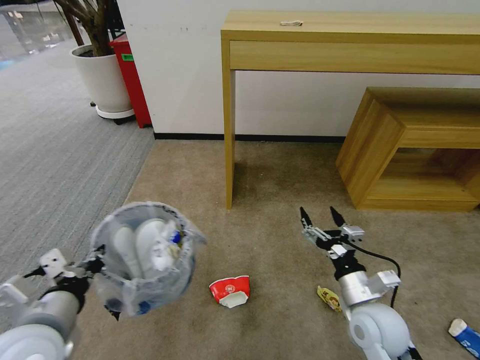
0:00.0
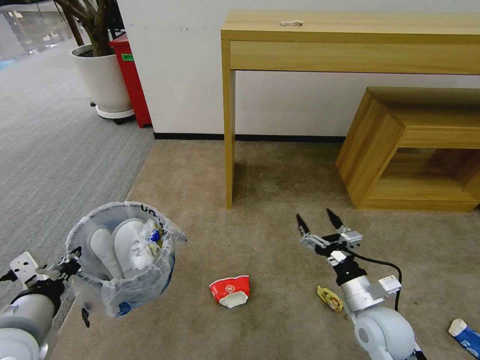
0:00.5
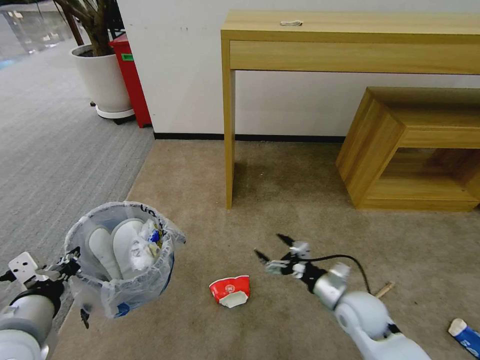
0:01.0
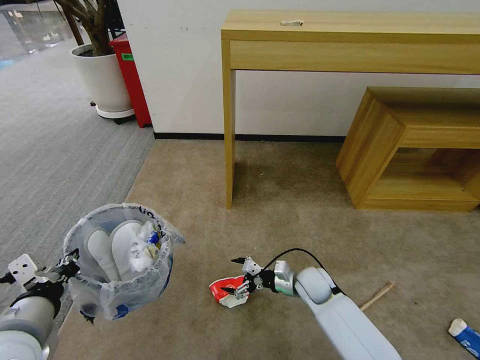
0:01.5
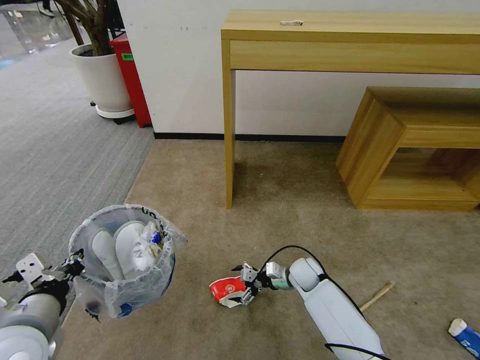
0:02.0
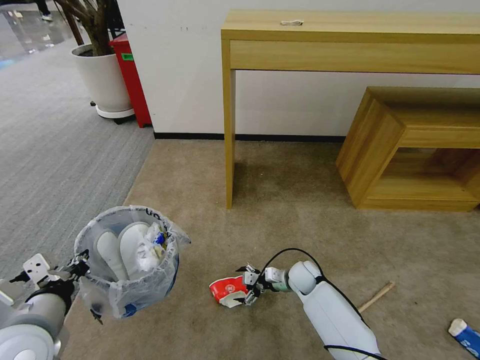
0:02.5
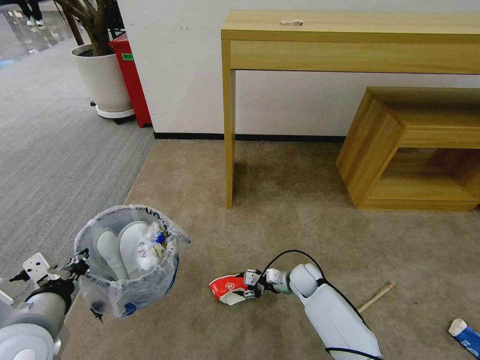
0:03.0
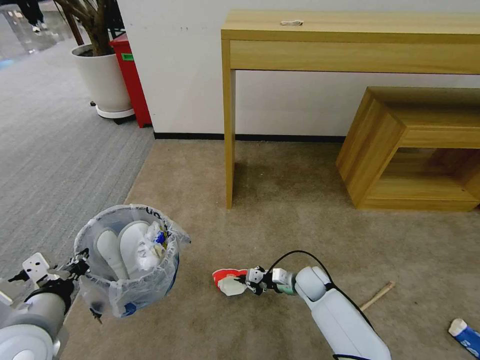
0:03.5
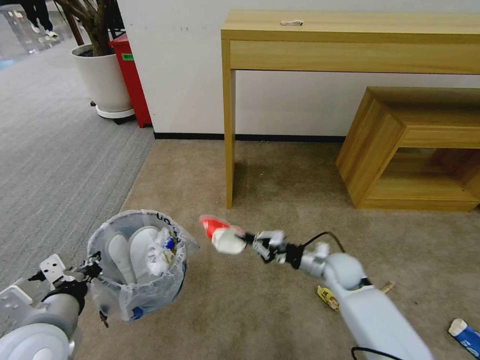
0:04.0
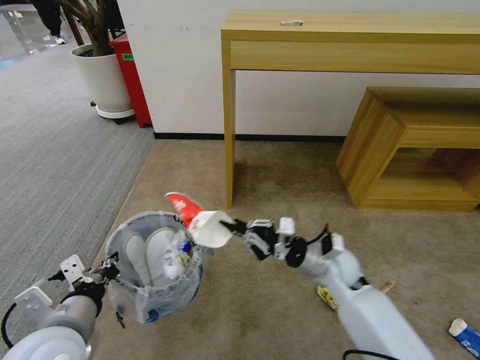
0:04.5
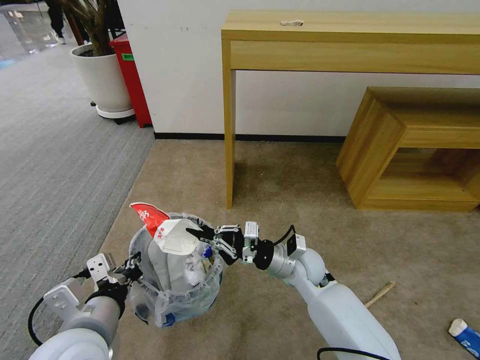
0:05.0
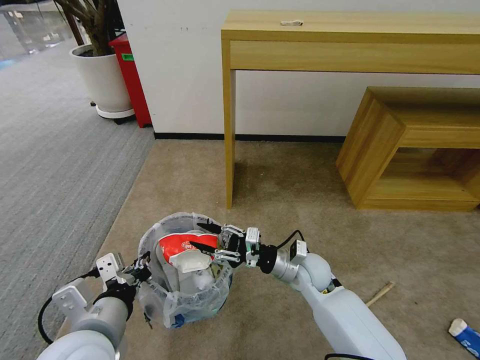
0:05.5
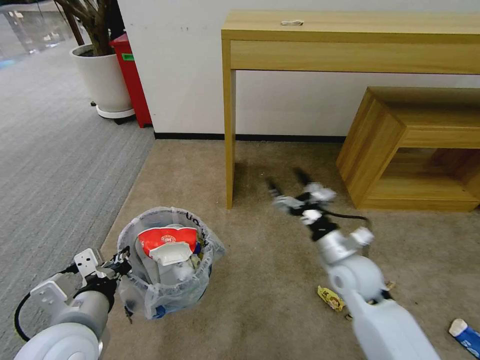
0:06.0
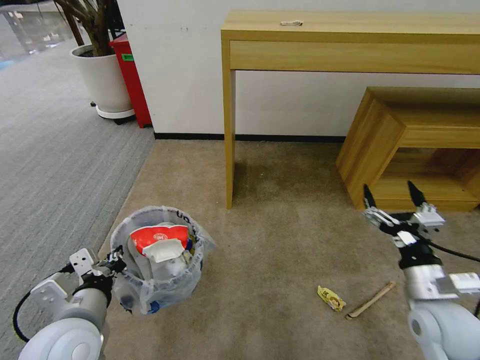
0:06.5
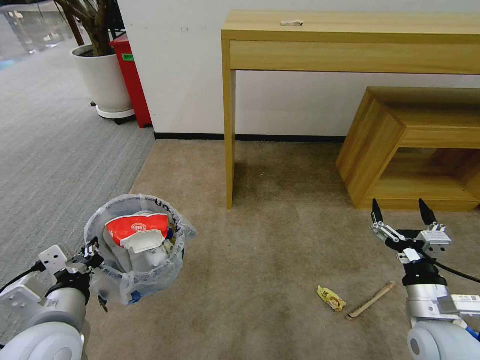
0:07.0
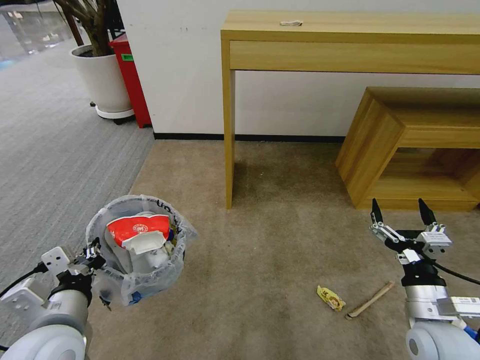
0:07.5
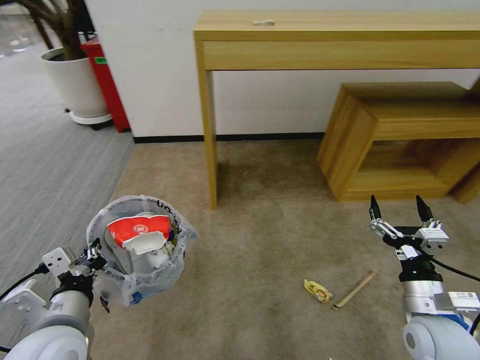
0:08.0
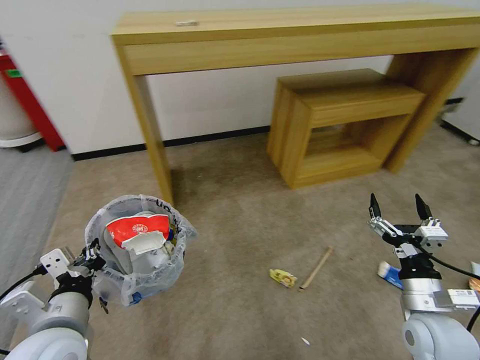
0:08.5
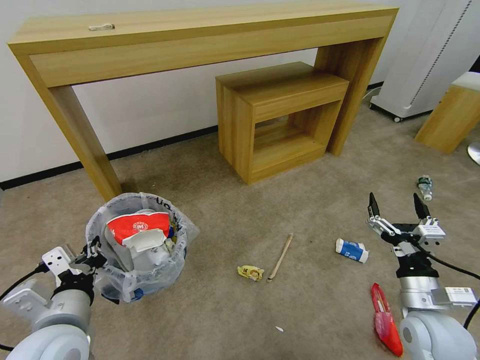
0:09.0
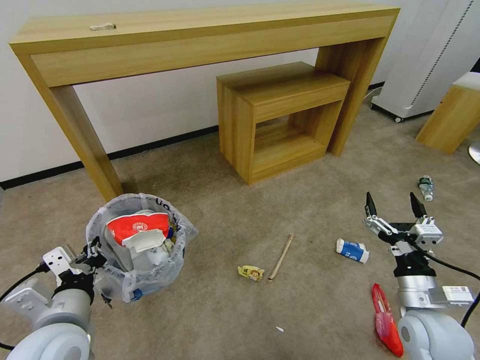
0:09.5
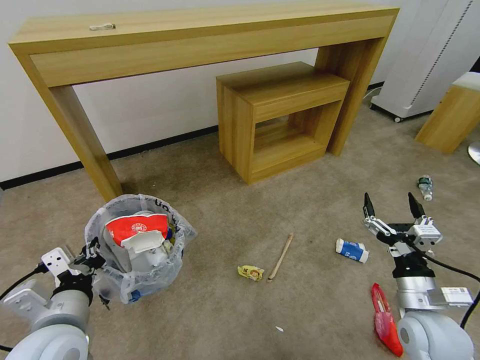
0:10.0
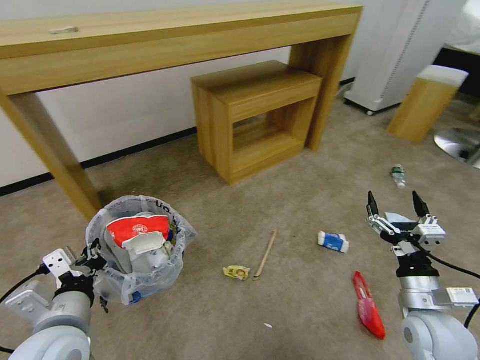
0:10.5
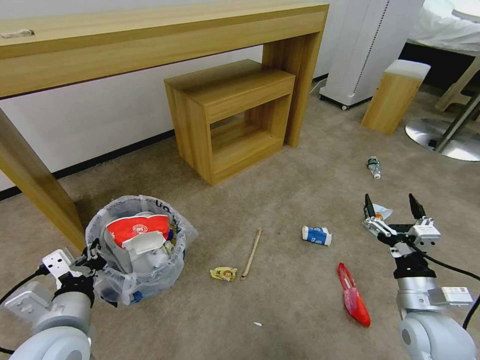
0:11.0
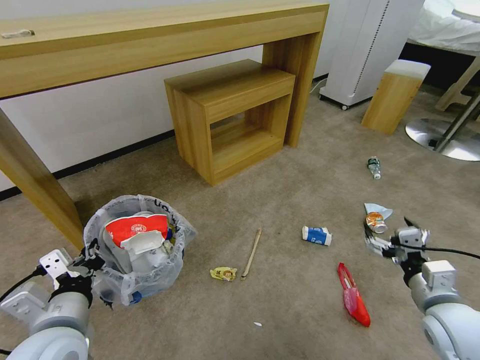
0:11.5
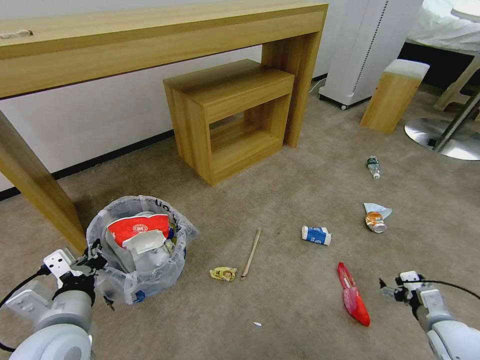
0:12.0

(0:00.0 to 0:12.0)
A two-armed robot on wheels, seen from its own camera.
Task of the whole recording: Pick up the trash bin and place the garbage on the floor into it.
0:00.0 - 0:02.0: The right gripper shifts about 25 cm forward and downward.
0:02.0 - 0:04.0: The right gripper goes some 10 cm upward and to the right, and closes up.
0:04.0 - 0:06.0: The right gripper travels upward and backward by about 10 cm, moves some 10 cm to the left and comes back, and opens.
0:06.0 - 0:08.0: The right gripper heads backward and to the right, covering roughly 15 cm.
0:10.0 - 0:12.0: The right gripper heads to the right and downward, covering about 15 cm.

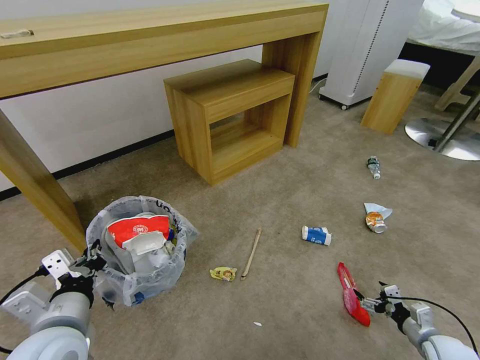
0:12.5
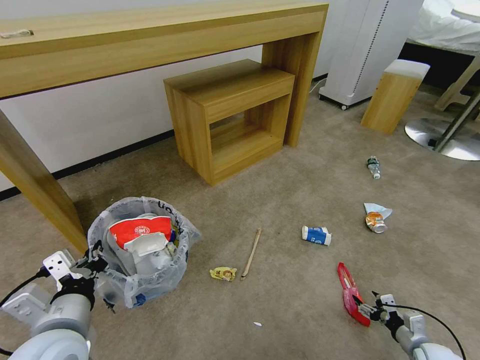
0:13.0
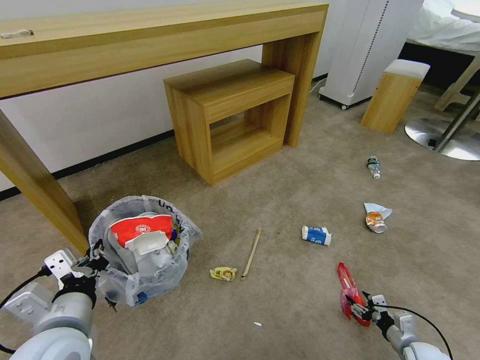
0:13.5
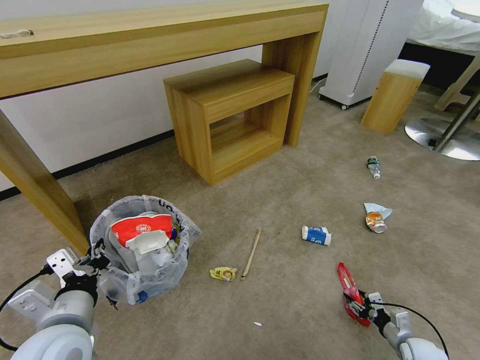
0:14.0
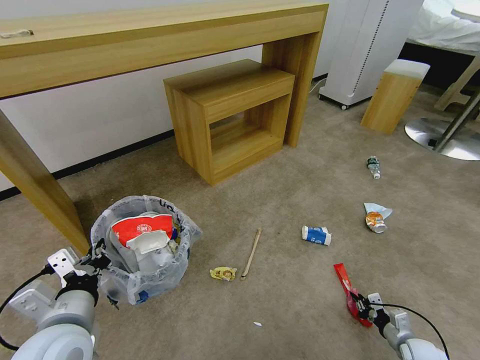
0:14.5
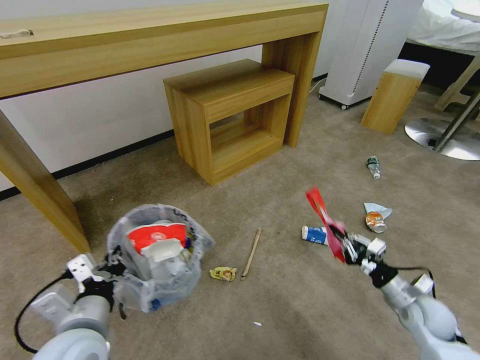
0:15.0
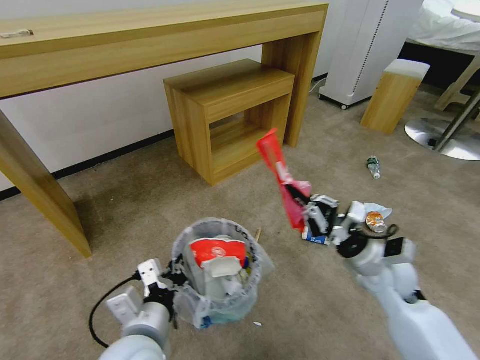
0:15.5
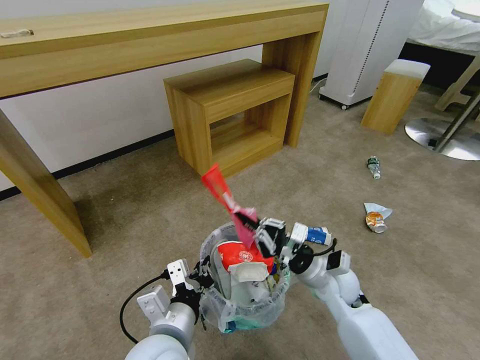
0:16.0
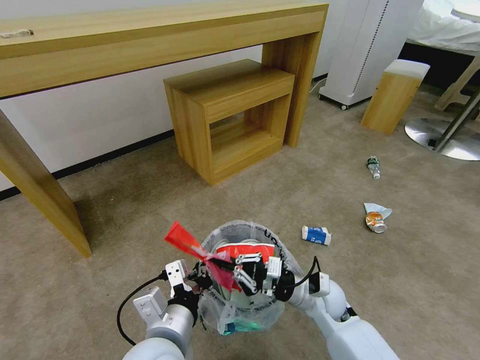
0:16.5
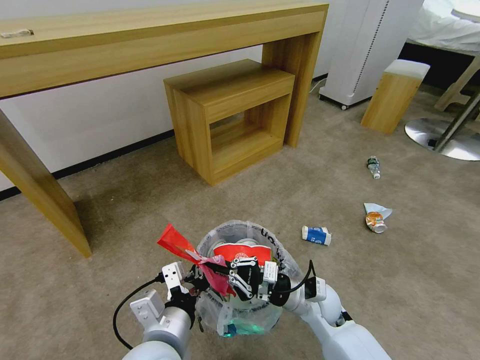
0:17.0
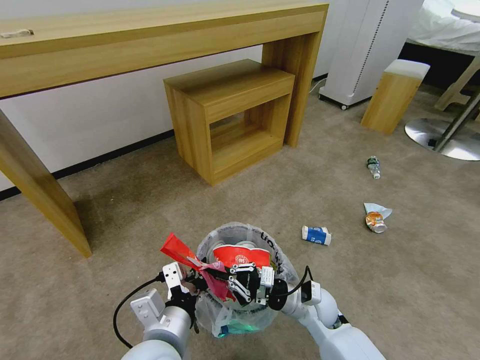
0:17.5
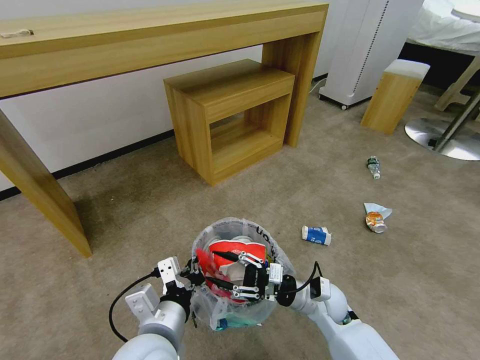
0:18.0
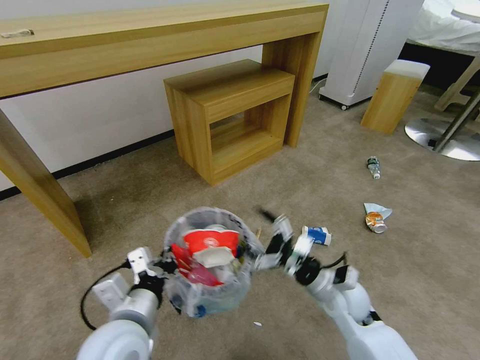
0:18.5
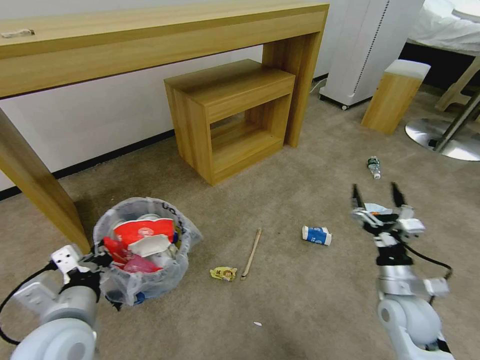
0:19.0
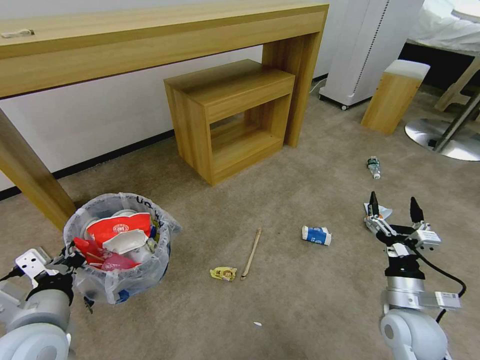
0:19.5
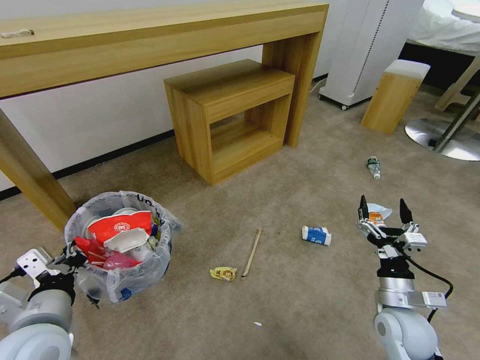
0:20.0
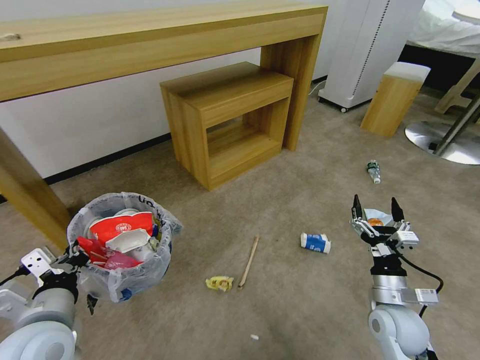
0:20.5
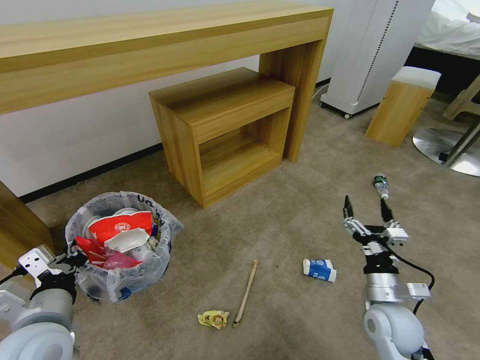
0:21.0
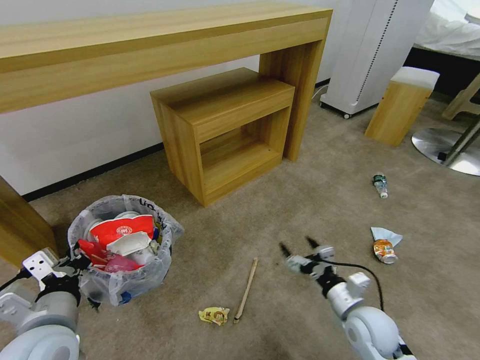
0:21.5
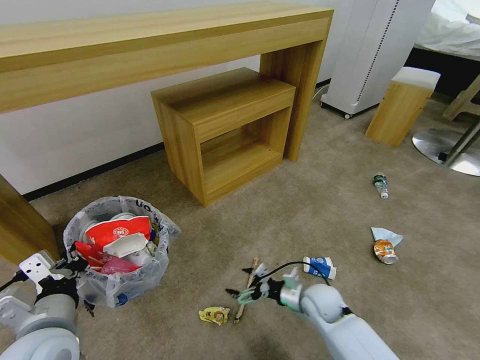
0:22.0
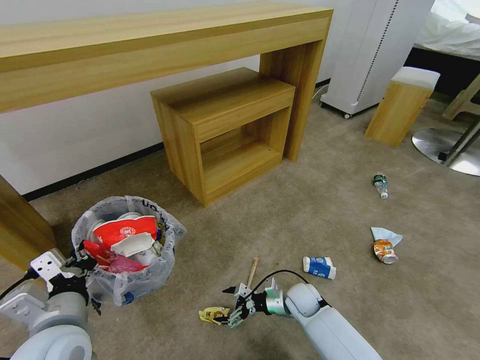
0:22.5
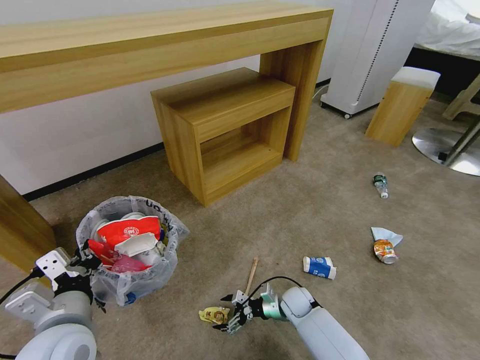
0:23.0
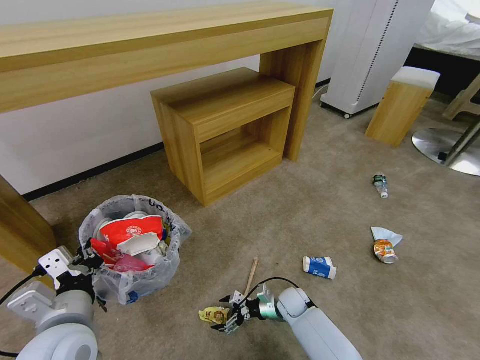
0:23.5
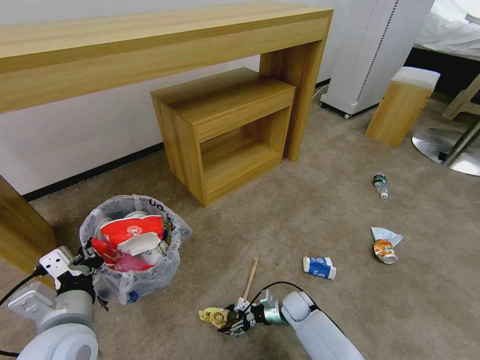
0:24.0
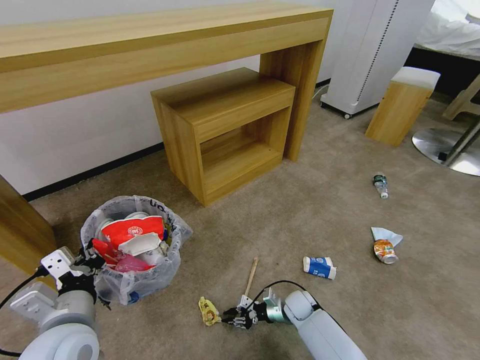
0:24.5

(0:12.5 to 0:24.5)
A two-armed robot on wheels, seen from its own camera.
Task of the whole recording: Pick up the trash bin and place the garbage on the floor into it.
0:12.5 - 0:14.5: The right gripper goes roughly 10 cm downward, and closes up.
0:14.5 - 0:16.5: The right gripper shifts roughly 35 cm to the left and upward. Meanwhile the left gripper moves to the right, approximately 15 cm.
0:16.5 - 0:18.5: The right gripper opens its fingers.
0:18.5 - 0:20.5: The left gripper is displaced to the left by approximately 15 cm, while the right gripper travels to the right and backward by about 15 cm.
0:20.5 - 0:22.5: The right gripper moves to the left, some 5 cm.
0:22.5 - 0:24.5: The right gripper heads downward, forward and to the left, covering approximately 20 cm, and closes its fingers.

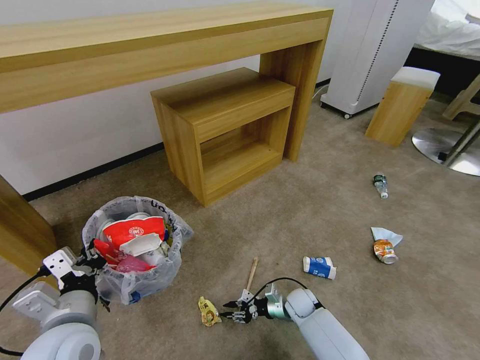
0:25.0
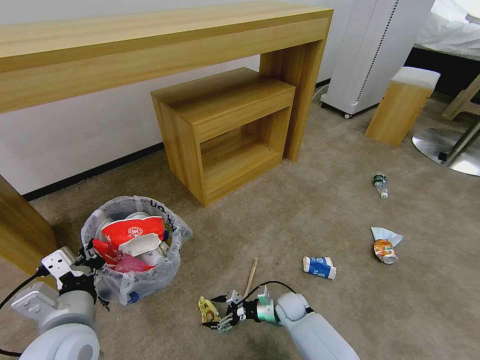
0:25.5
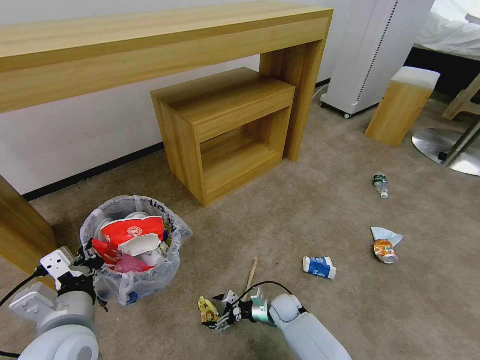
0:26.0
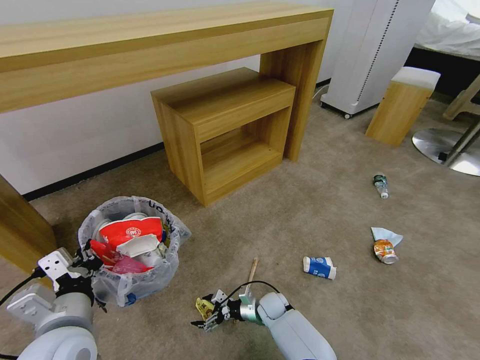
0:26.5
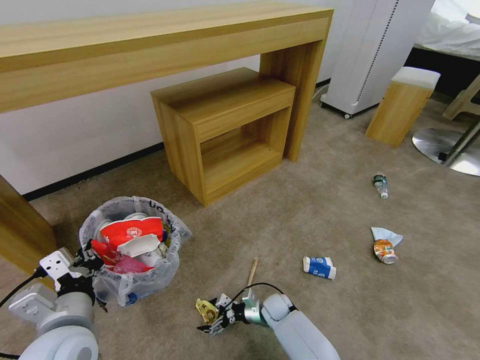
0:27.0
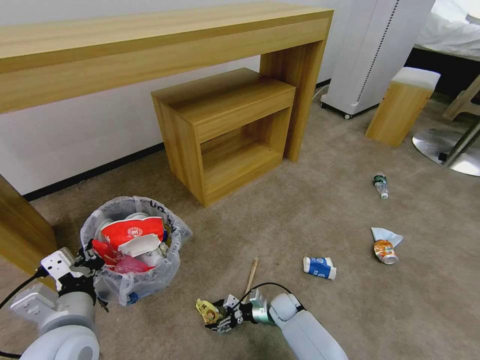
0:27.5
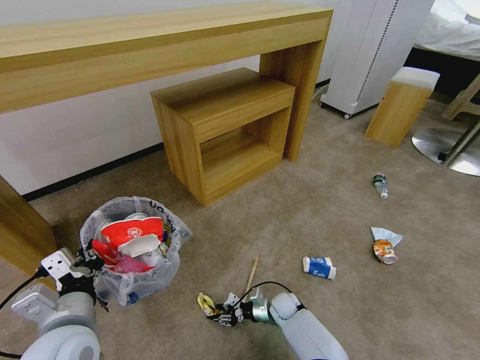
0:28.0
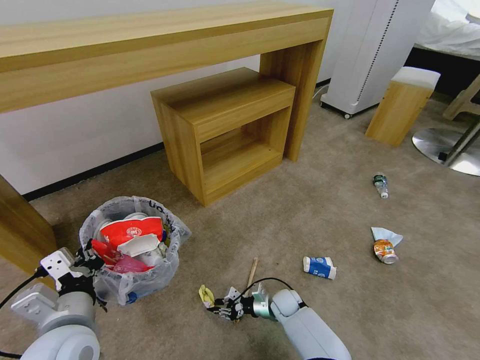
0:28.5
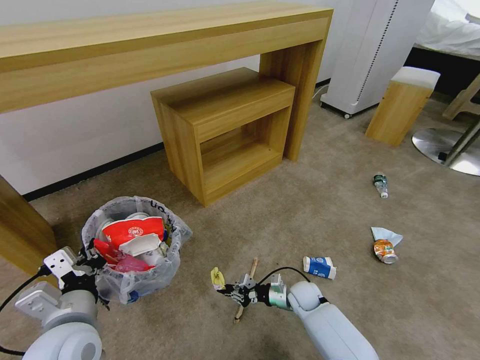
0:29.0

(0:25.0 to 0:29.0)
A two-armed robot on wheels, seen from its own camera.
Task of the whole recording: Pick up the trash bin and place the garbage on the floor into it.
0:25.0 - 0:27.0: The right gripper is displaced to the left by roughly 5 cm, and opens up.
0:27.0 - 0:29.0: The right gripper closes its fingers.
